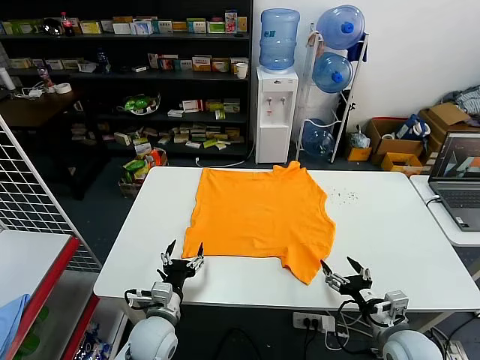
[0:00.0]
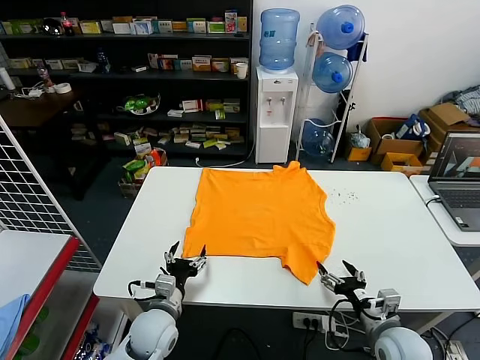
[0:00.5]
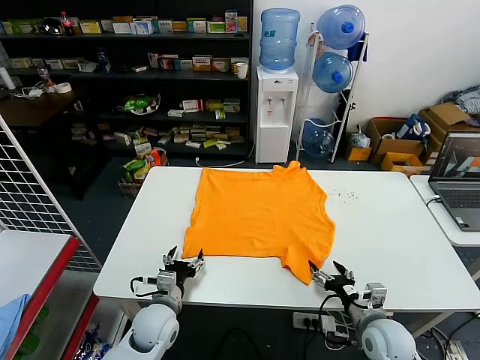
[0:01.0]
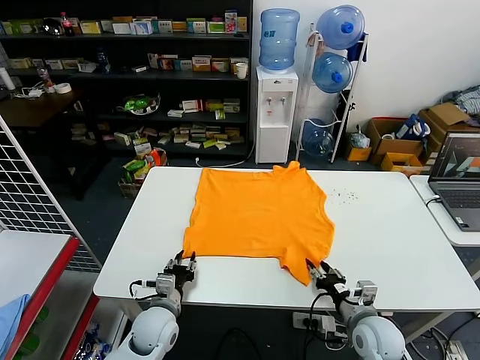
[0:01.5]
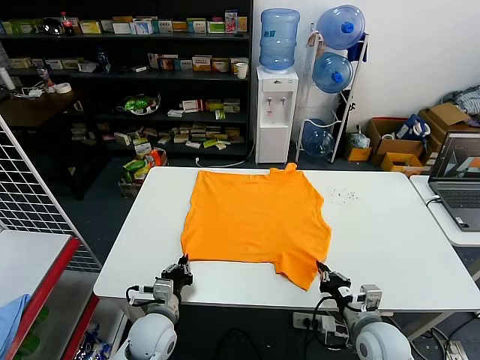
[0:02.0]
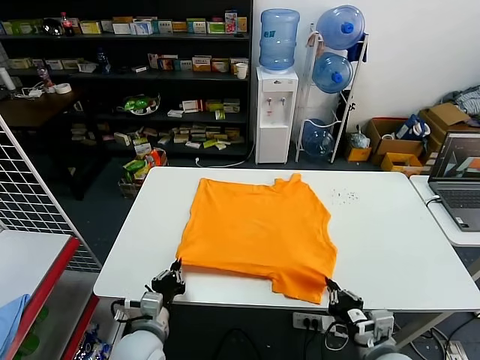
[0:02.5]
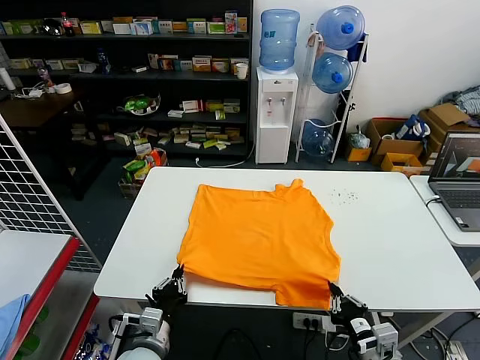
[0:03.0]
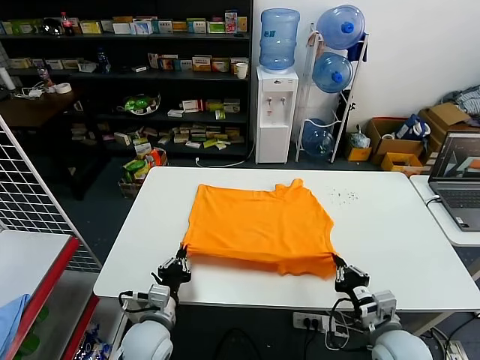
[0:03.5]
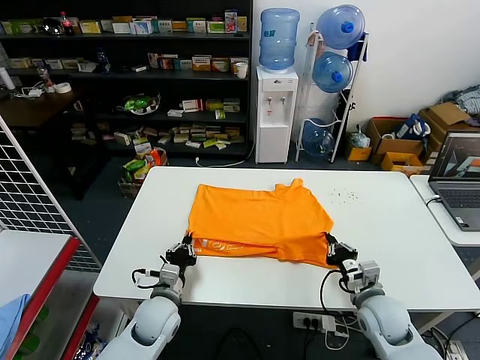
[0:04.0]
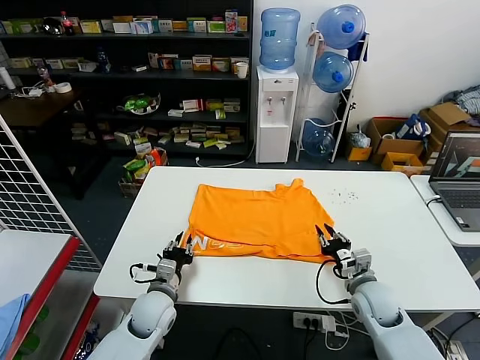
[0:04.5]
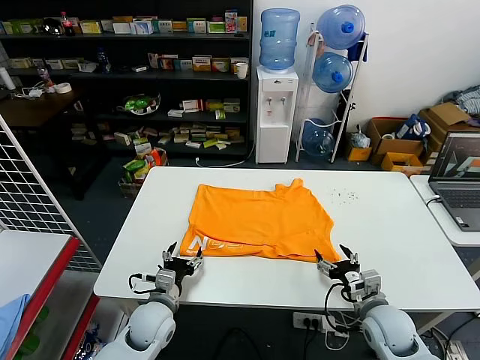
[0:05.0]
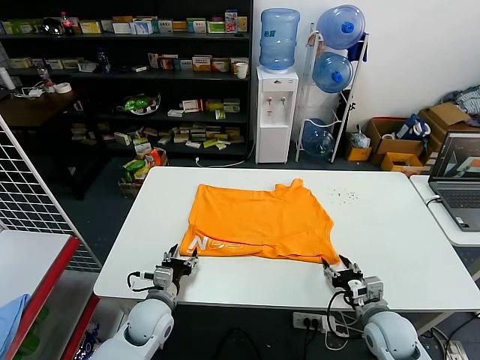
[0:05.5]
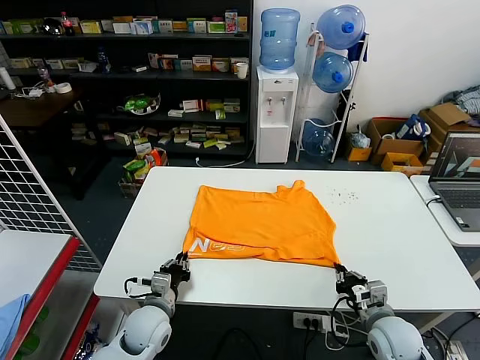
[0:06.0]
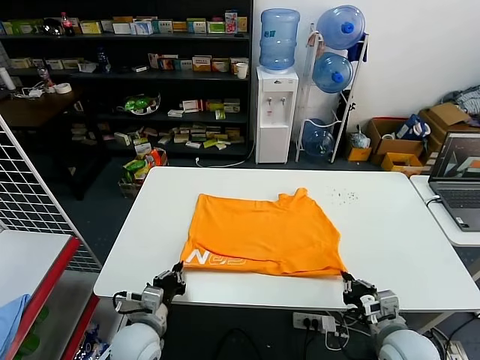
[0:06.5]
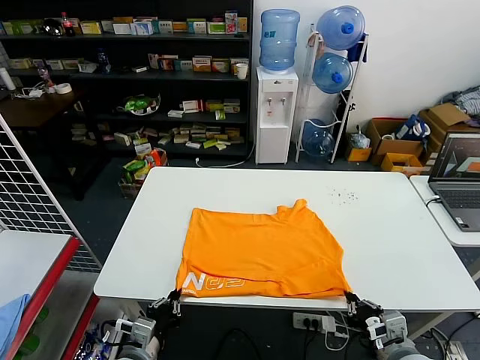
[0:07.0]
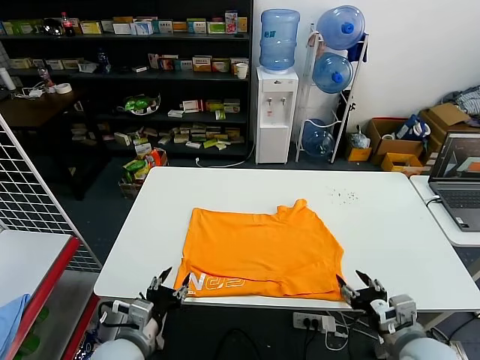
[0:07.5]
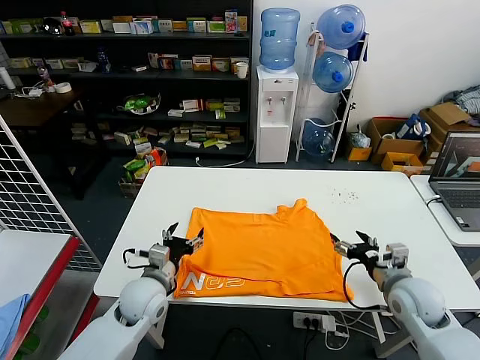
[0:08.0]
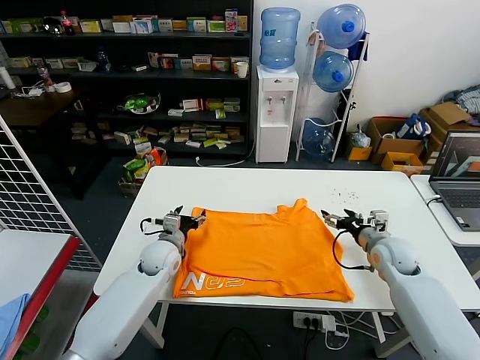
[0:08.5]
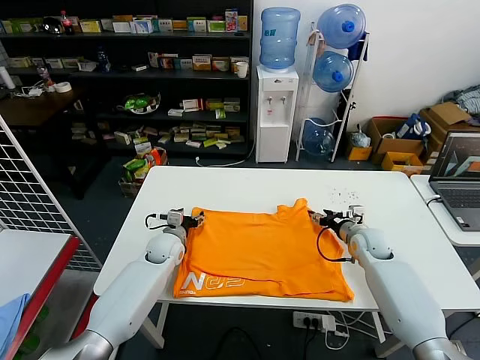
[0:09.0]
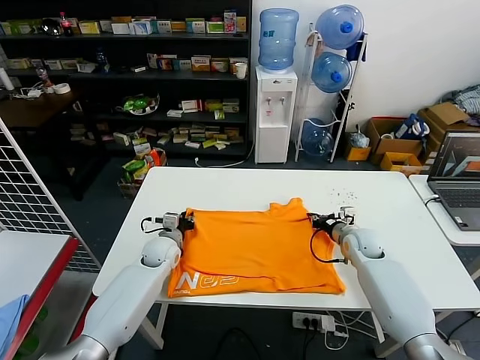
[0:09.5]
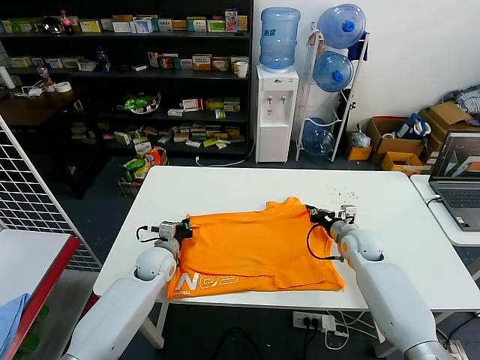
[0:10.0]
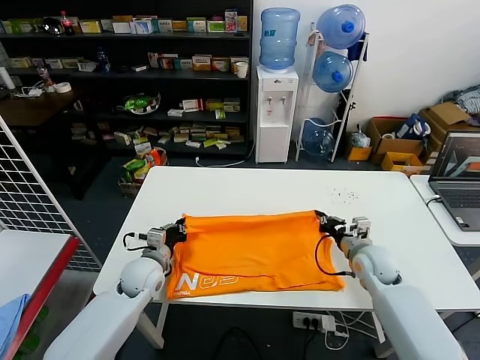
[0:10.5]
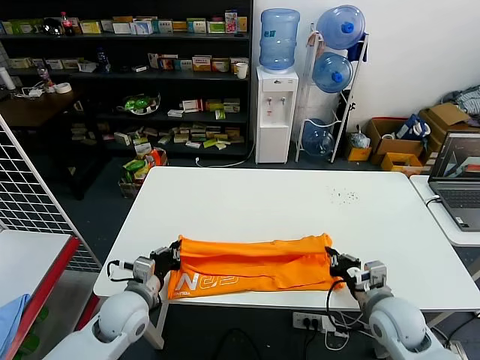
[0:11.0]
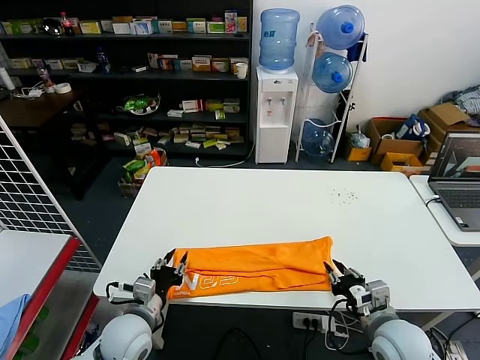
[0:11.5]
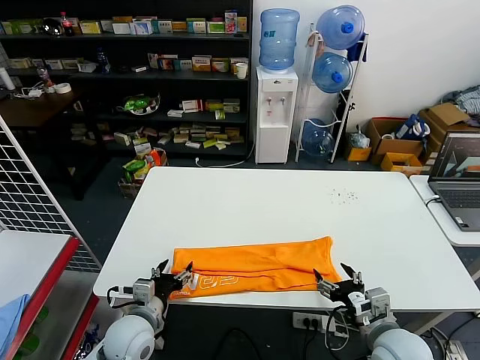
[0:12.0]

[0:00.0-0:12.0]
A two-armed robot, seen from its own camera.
Task of the whole recording: fold and organize the clothes.
Step, 0:00.0 to 0:02.0: use both grippers simultaneously to clamp the lower edge of the clothing fabric.
Step, 0:02.5 to 0:04.5: use both grippers to drag the lower edge of the fabric forward and fold it over the upper edge.
Step, 0:05.0 to 0:07.0: Drag the clothes downward with both gripper.
Step, 0:07.5 to 0:09.5: use both grippers simultaneously to clamp the upper edge of the clothing fabric.
Step, 0:10.0 to 0:11.0: use both grippers to drag the upper edge of the fabric backward and fold it over the lower edge.
0:02.0 to 0:04.0: The right gripper shifts about 5 cm forward, while the left gripper goes backward and returns, about 10 cm each way.
0:04.0 to 0:06.0: The left gripper opens, then closes once more. The right gripper heads backward, covering roughly 5 cm, and opens and closes again.
0:06.0 to 0:08.0: The left gripper travels upward by some 5 cm, reaches approximately 10 cm backward, then returns, and opens its fingers; the right gripper heads upward and forward, covering approximately 10 cm, and opens up.
0:08.0 to 0:10.0: The right gripper goes approximately 15 cm forward, and closes up; the left gripper moves forward and downward, approximately 15 cm, and closes its fingers.
0:10.0 to 0:12.0: Both grippers travel together backward, about 20 cm. The right gripper opens its fingers. Meanwhile the left gripper opens up.

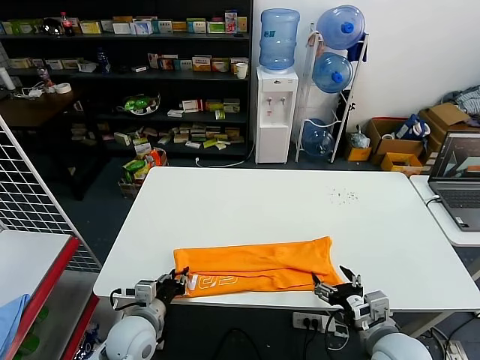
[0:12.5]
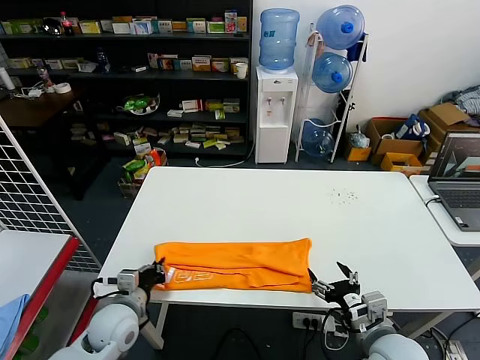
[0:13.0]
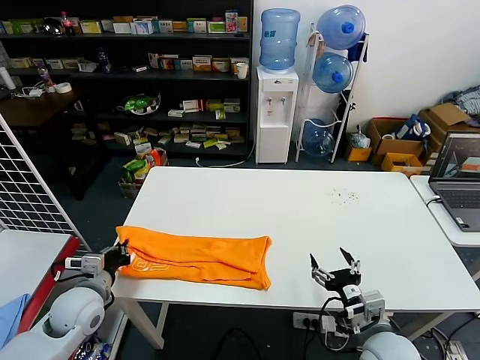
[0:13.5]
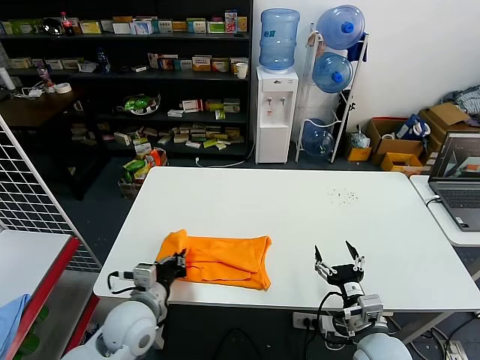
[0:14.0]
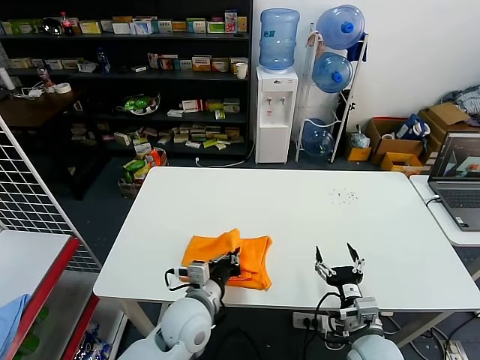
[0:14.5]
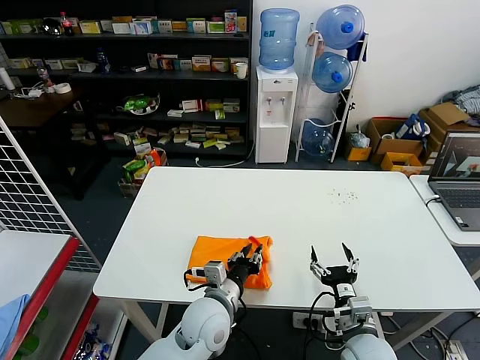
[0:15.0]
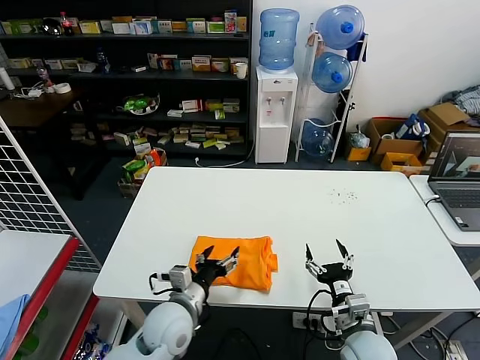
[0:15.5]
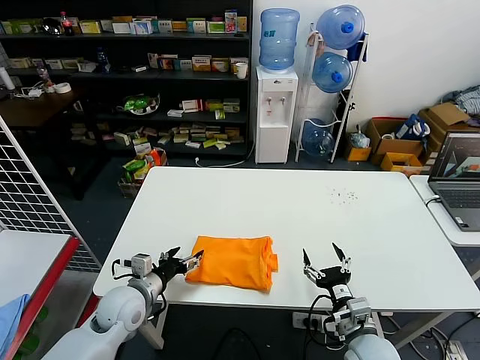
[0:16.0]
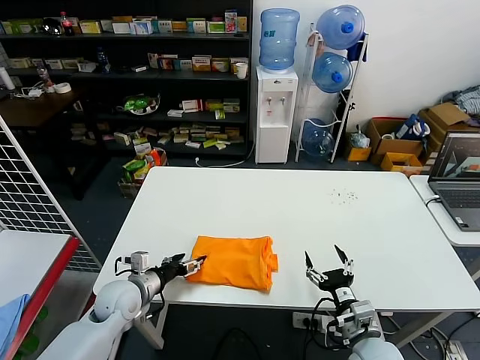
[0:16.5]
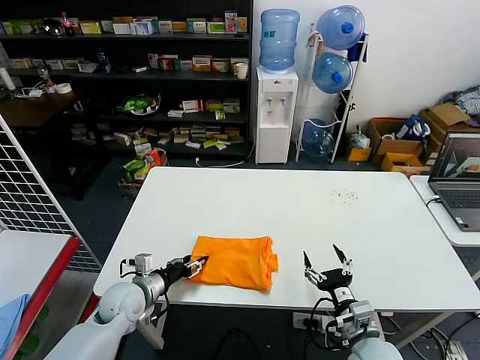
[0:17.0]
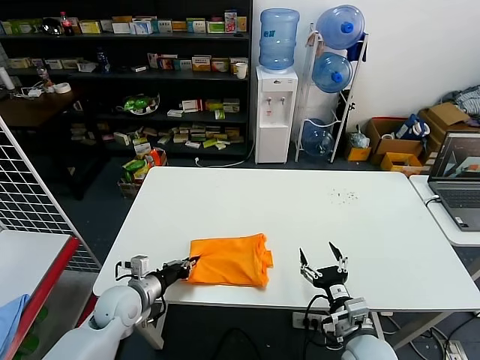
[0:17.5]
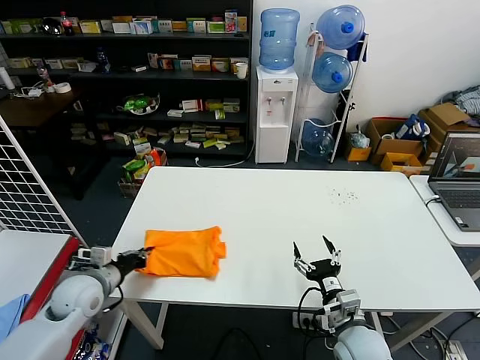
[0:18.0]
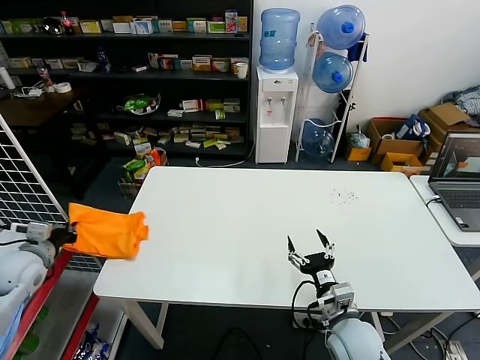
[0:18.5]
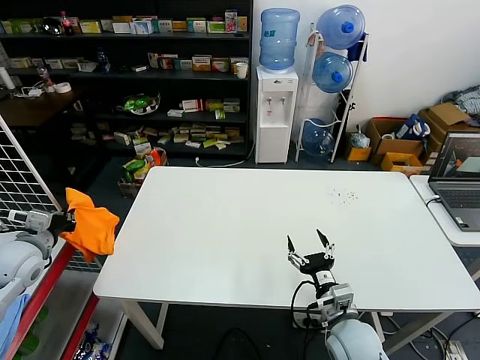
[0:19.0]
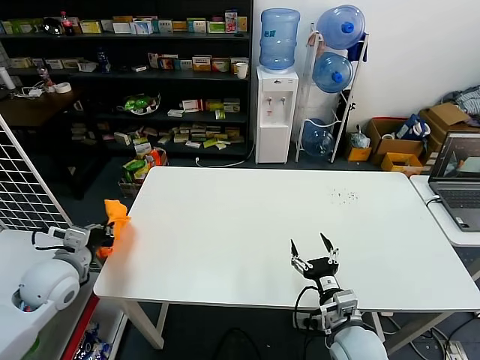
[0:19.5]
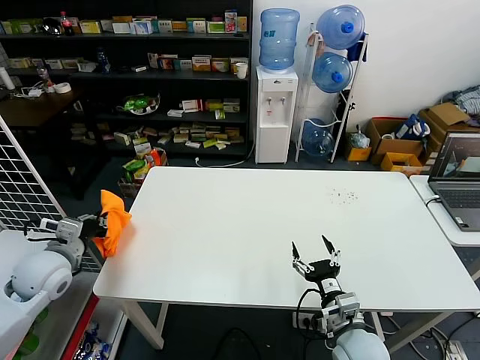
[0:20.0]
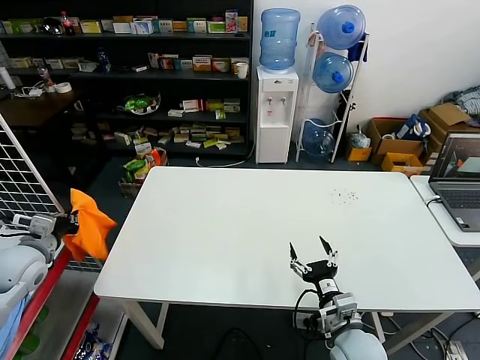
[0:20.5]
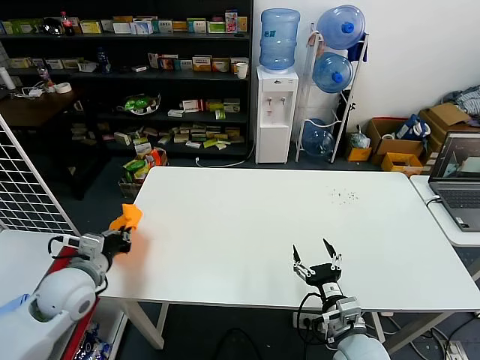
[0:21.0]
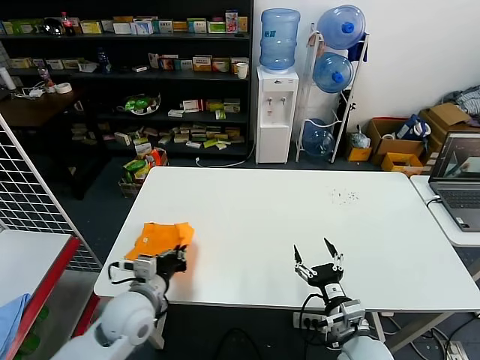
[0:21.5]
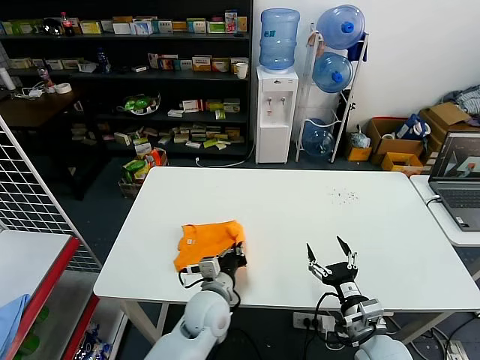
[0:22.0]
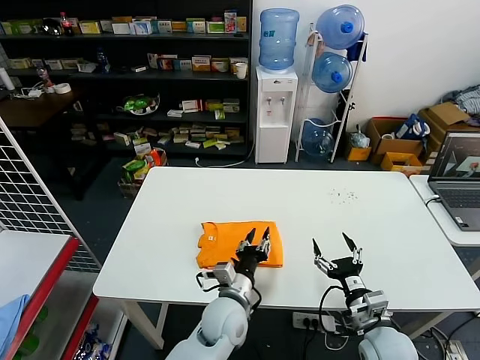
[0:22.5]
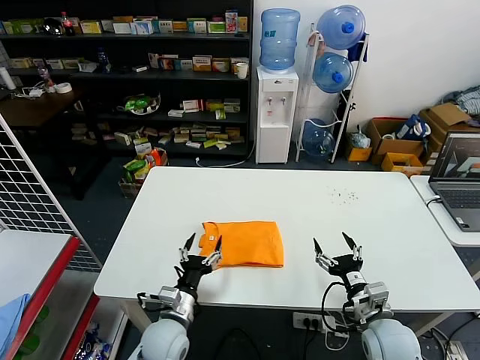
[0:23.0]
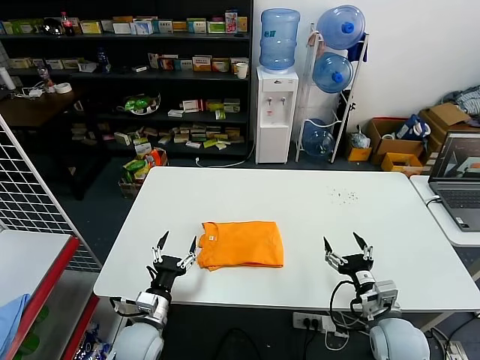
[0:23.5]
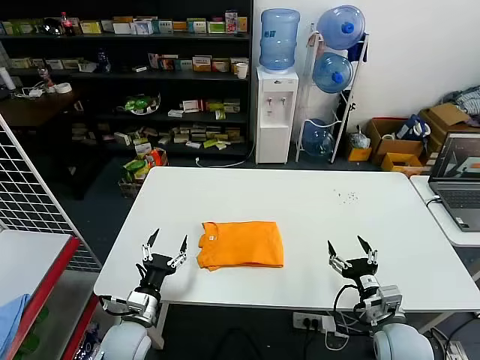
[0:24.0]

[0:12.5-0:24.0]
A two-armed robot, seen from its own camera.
Task of the whole recording: fold and organize the clothes.
Step, 0:13.0 to 0:14.5: use the left gripper to drag the left edge of the fabric to the left and folds it over the right edge.
Step, 0:15.5 to 0:22.0: Flip the folded clothes over with left gripper.
0:12.5 to 0:14.5: The right gripper changes place by about 5 cm. Meanwhile the left gripper goes about 10 cm to the right and upward, and closes its fingers.
0:14.5 to 0:16.5: The left gripper travels to the left by some 15 cm, and opens its fingers.
0:16.5 to 0:18.5: The right gripper ends up some 5 cm from where it was, while the left gripper shifts about 20 cm to the left and upward, and closes.
0:18.5 to 0:20.0: The left gripper is displaced to the right by some 10 cm.
0:20.0 to 0:22.0: The left gripper travels to the right and downward by approximately 30 cm.
0:22.0 to 0:24.0: The left gripper moves to the left, some 15 cm, and opens; the right gripper ends up some 5 cm from where it was.

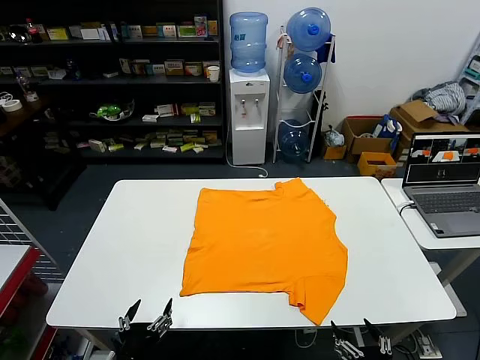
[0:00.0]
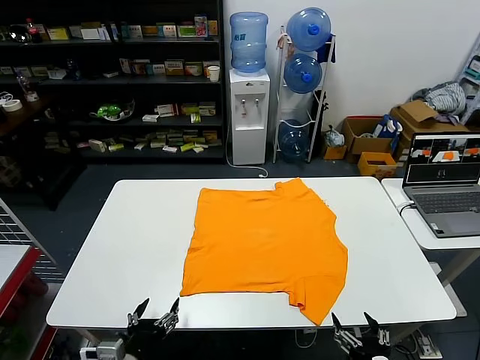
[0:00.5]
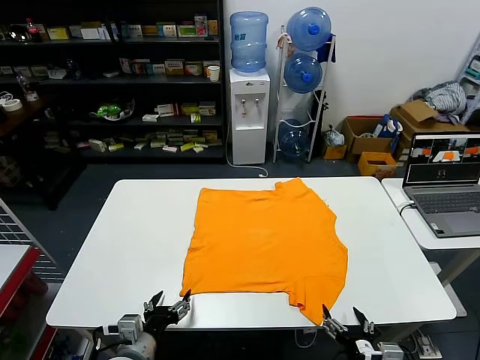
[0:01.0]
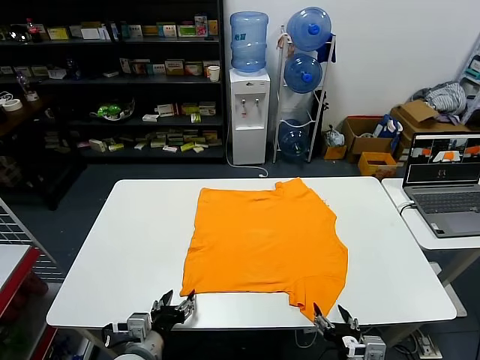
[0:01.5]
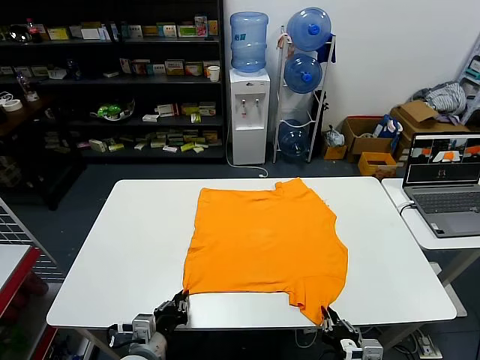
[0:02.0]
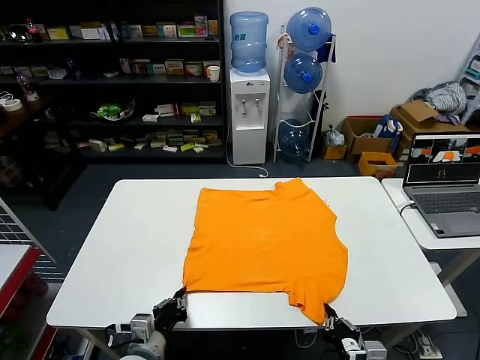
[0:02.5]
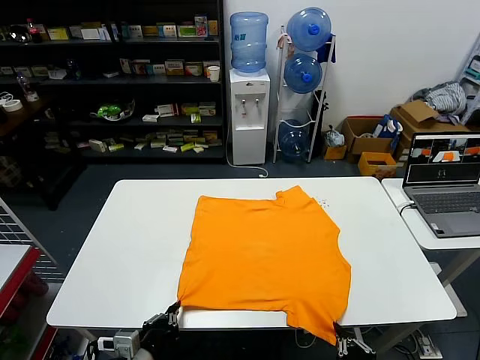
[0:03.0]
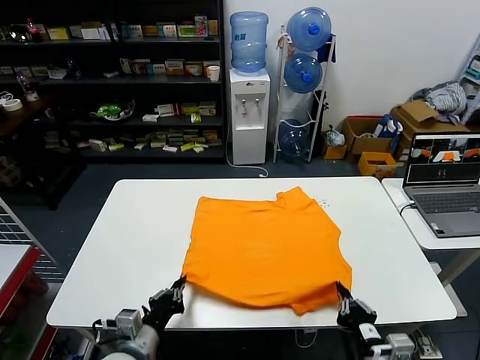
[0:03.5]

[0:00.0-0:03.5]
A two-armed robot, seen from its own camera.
Task of the whole recording: fold and organize the clothes.
Step, 0:00.0 to 0:02.0: use both grippers simultaneously to clamp the lower edge of the clothing fabric.
0:02.0 to 0:03.5: The right gripper travels upward by approximately 5 cm, and travels backward and back again, about 5 cm each way.
